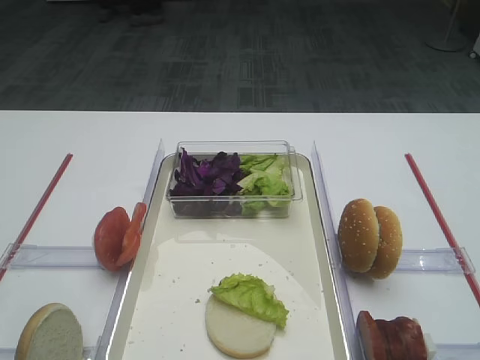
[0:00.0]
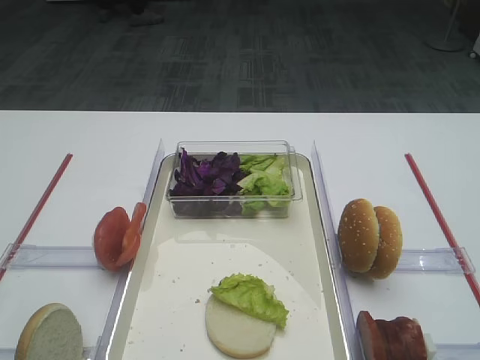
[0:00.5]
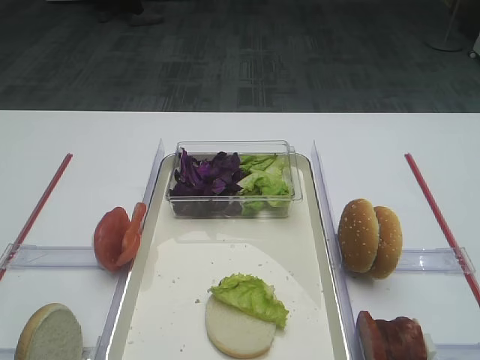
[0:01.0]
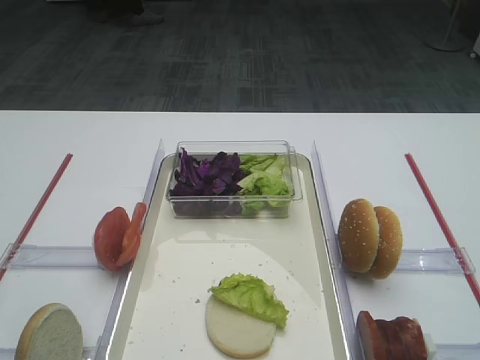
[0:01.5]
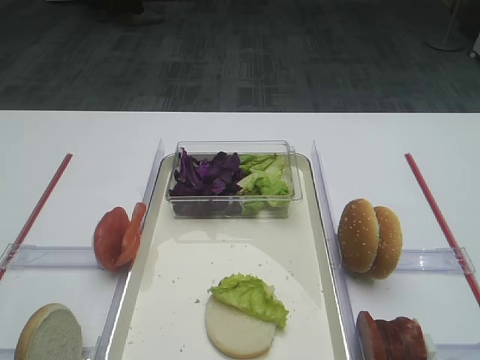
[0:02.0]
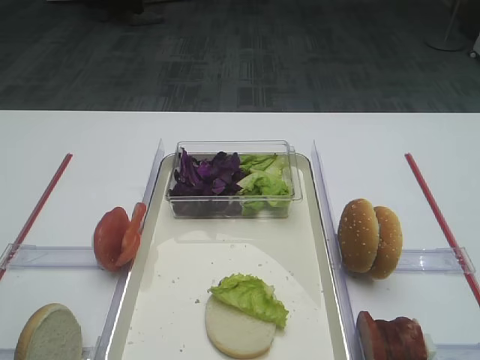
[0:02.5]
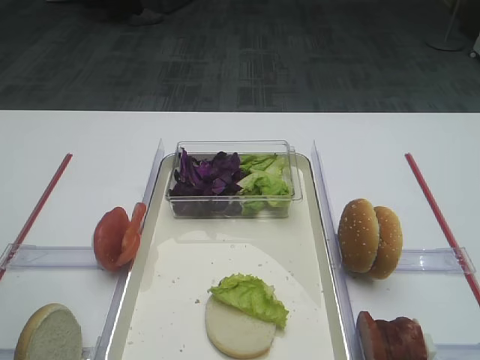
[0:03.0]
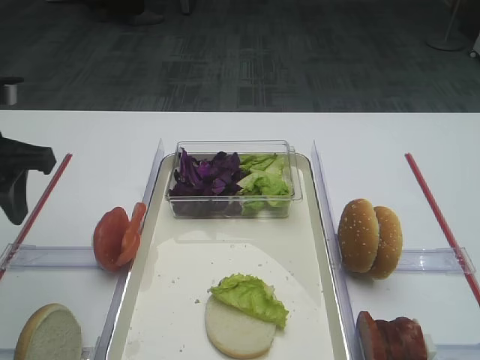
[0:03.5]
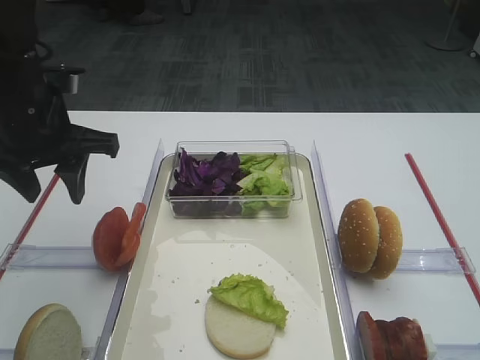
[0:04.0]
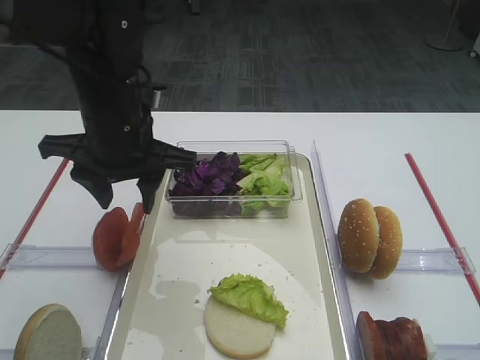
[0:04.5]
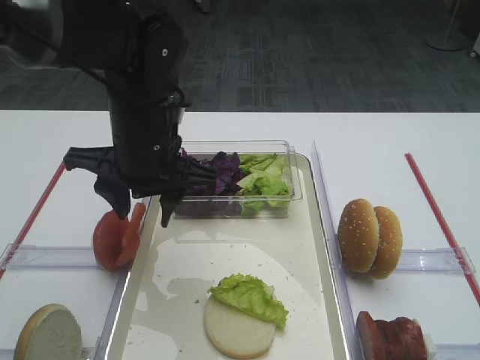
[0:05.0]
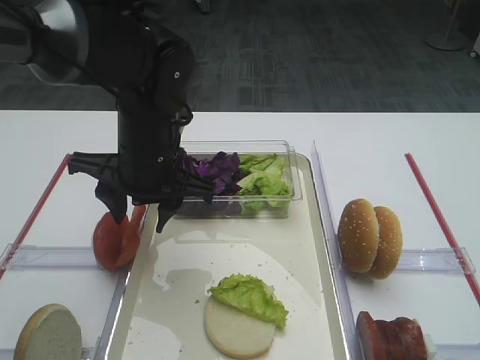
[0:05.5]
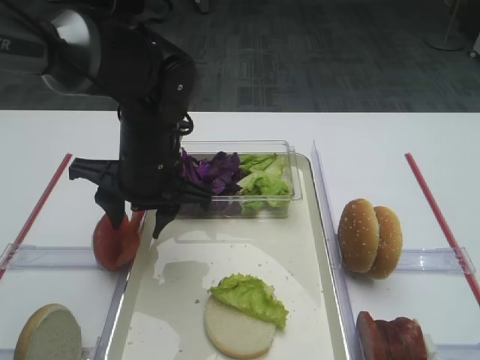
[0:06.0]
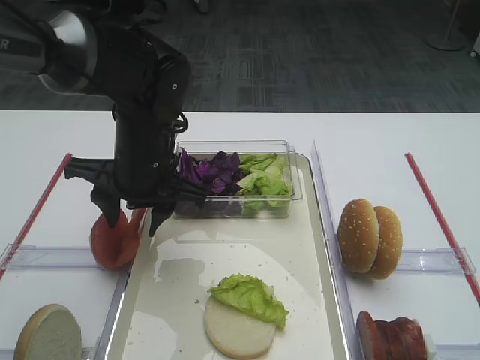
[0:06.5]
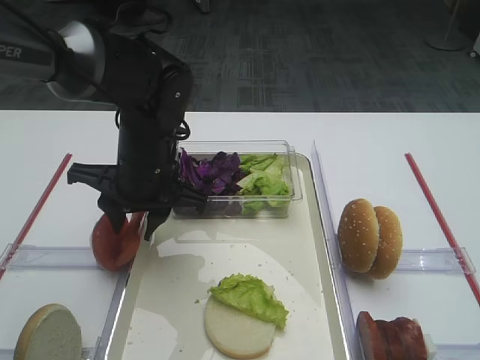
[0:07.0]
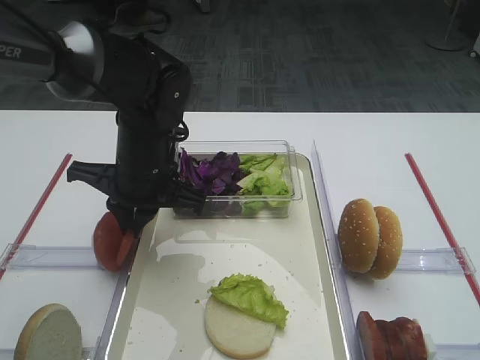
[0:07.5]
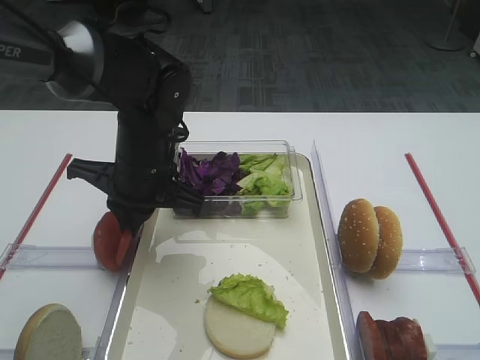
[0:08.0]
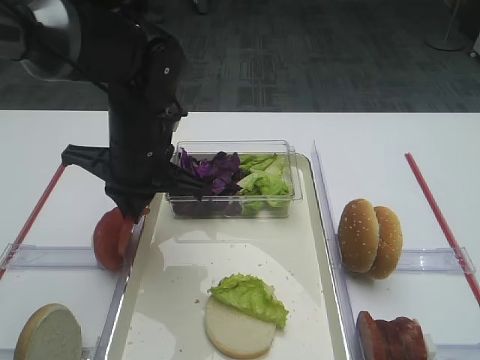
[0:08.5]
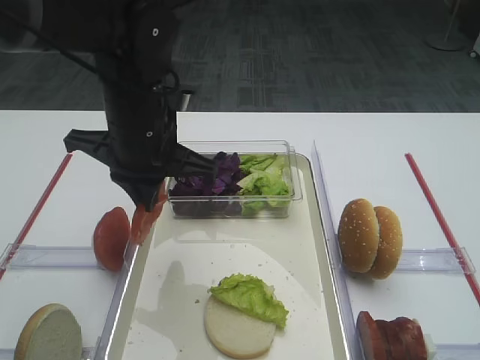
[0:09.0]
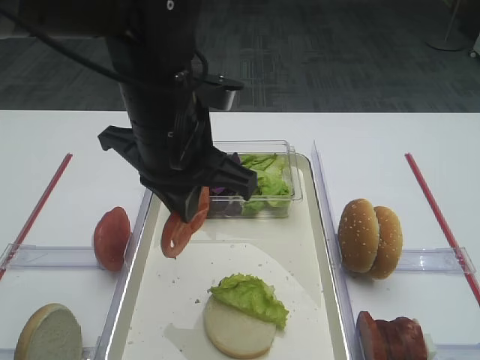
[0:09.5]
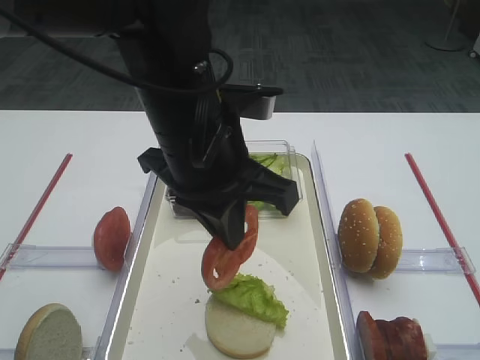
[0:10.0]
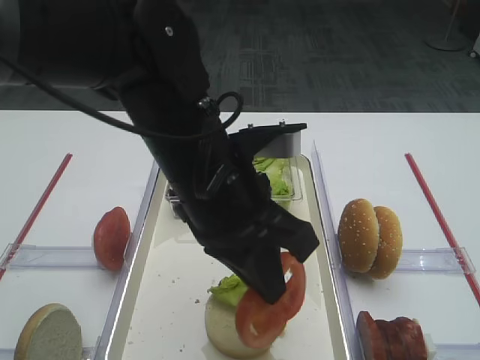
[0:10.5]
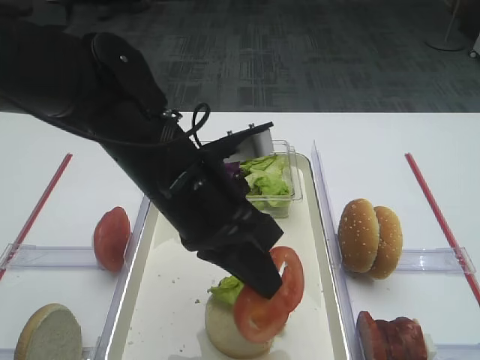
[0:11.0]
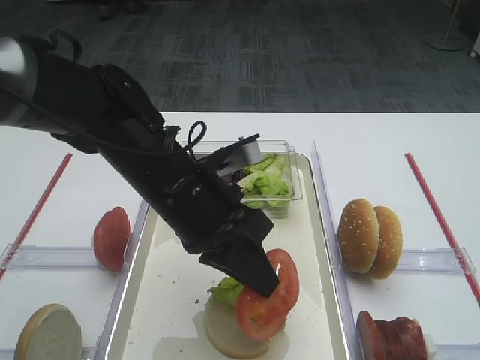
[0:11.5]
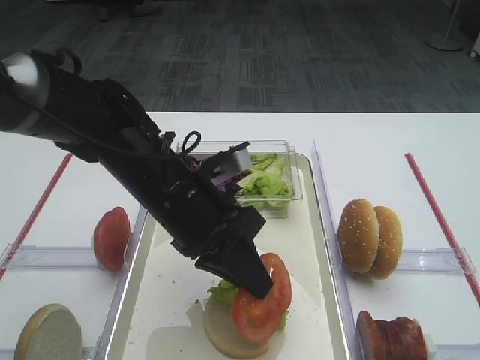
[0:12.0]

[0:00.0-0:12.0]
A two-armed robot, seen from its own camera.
Step, 0:00.0 to 0:08.5: Pick up the tomato slice with the left gripper.
0:02.0 to 0:04.0: The left gripper shifts approximately 25 cm forward.
0:04.0 to 0:06.0: The left gripper shifts approximately 15 cm to the right and downward.
0:06.0 to 0:08.0: The left gripper closes its fingers.
0:08.0 to 0:10.0: The left gripper travels upward, backward and to the right by approximately 15 cm.
0:10.0 to 0:12.0: The left gripper moves downward, approximately 10 cm.

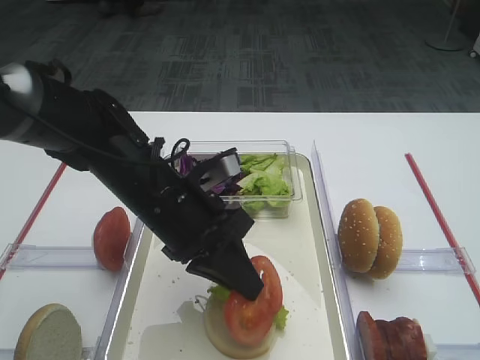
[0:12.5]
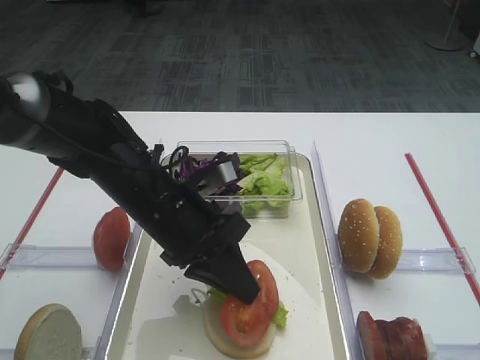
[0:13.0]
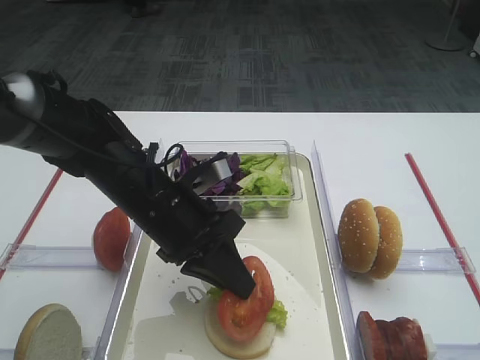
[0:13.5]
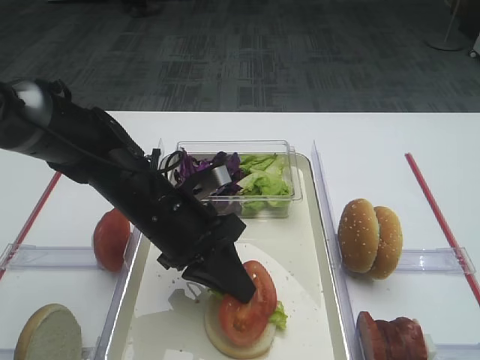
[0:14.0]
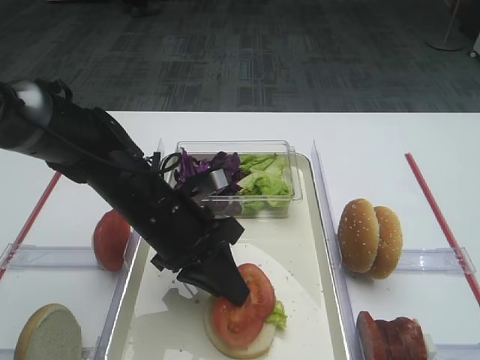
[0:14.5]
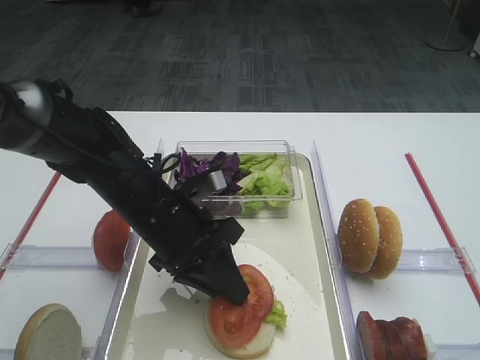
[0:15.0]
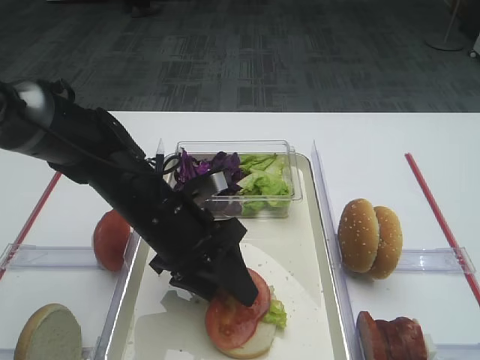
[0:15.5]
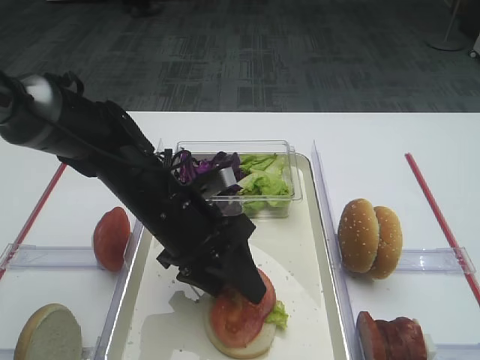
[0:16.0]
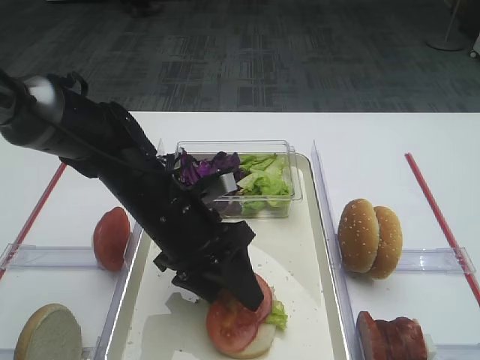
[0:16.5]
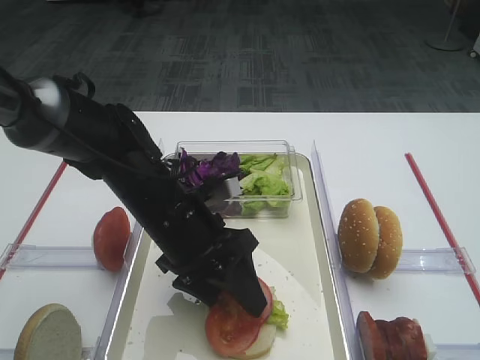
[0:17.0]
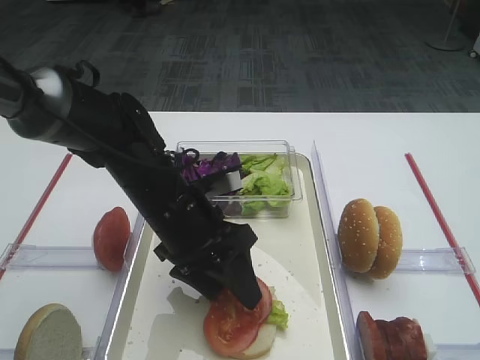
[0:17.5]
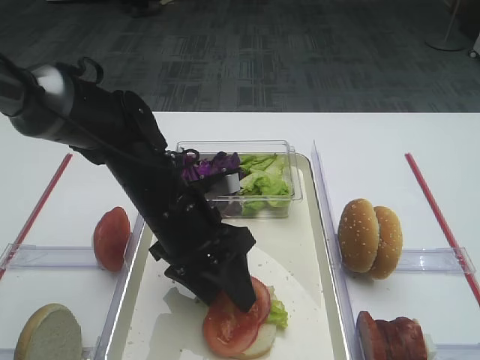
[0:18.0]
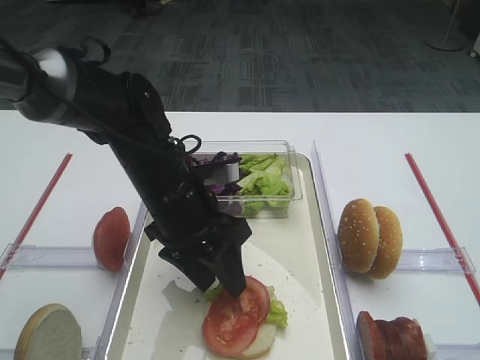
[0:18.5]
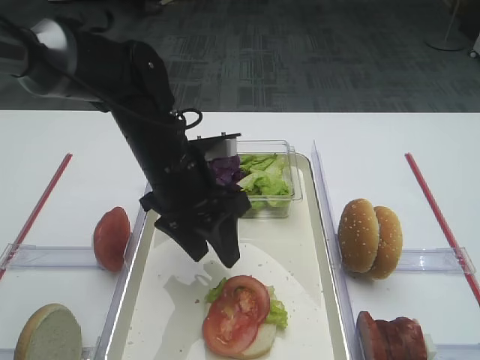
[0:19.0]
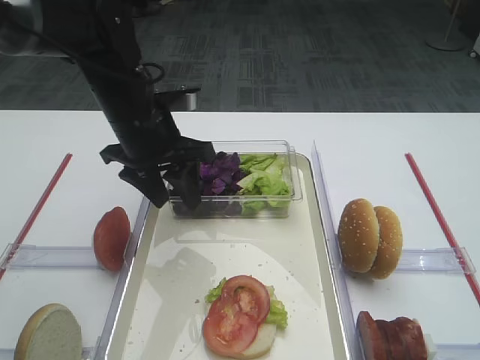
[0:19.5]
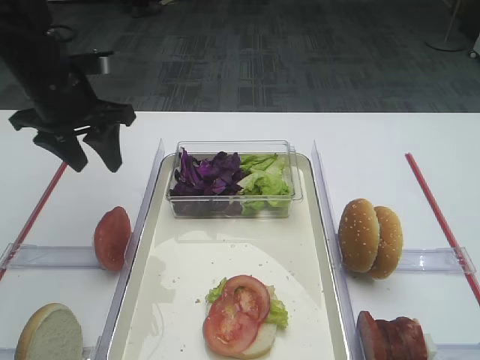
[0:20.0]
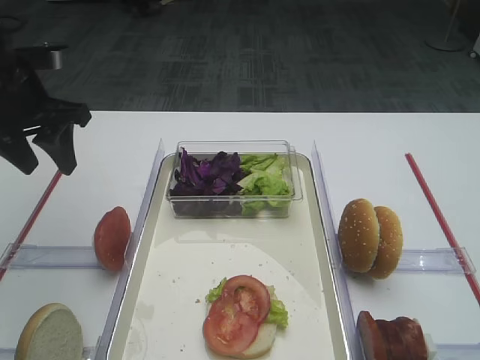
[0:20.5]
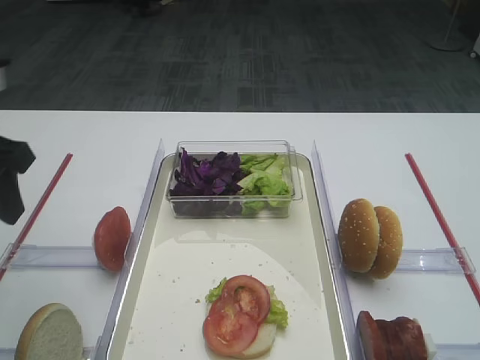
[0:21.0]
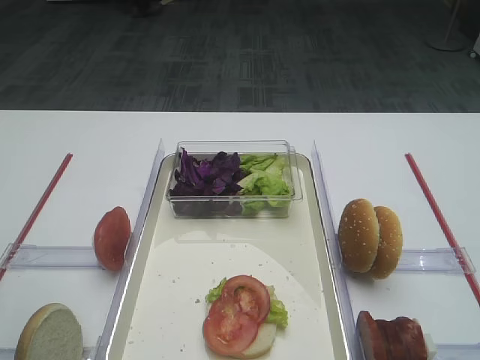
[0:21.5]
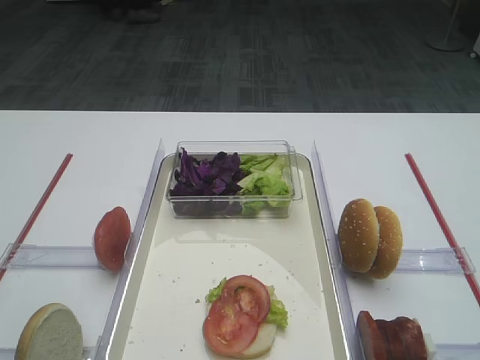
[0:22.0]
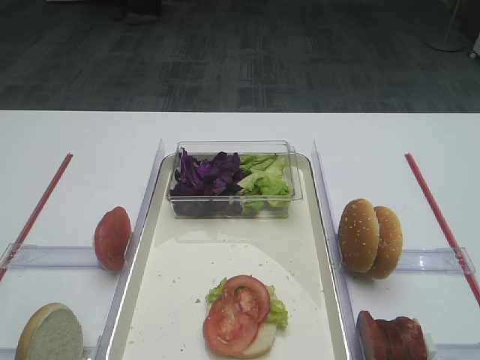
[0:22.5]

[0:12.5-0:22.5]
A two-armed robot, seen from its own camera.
Step, 0:12.5 to 0:18.5: Place the tomato slice on the lettuce leaf with the left gripper.
0:12.5 to 0:14.5: The grippers move only a little.
0:14.5 to 0:16.5: The left gripper opens.
0:16.5 to 0:18.5: The grippers move only a little.
0:18.5 to 0:20.5: The left gripper shifts some 20 cm to the left and upward.
0:20.5 to 0:22.5: The left gripper heads backward, covering some 30 cm.

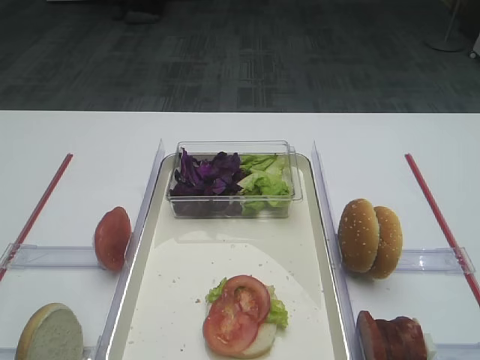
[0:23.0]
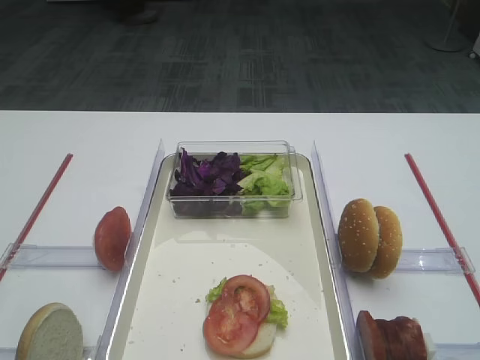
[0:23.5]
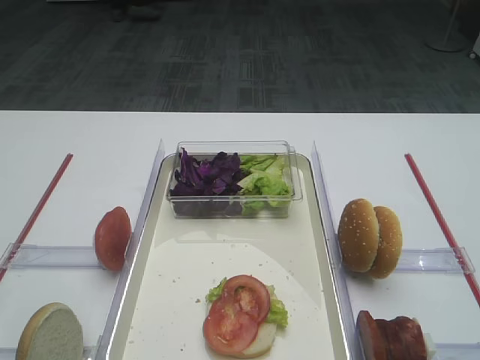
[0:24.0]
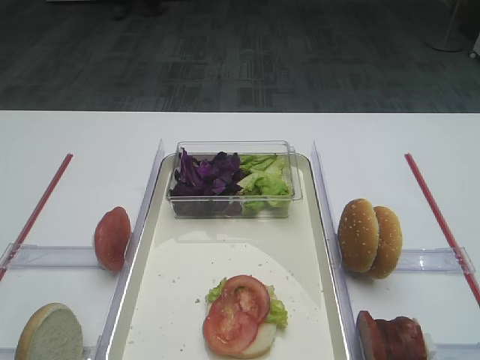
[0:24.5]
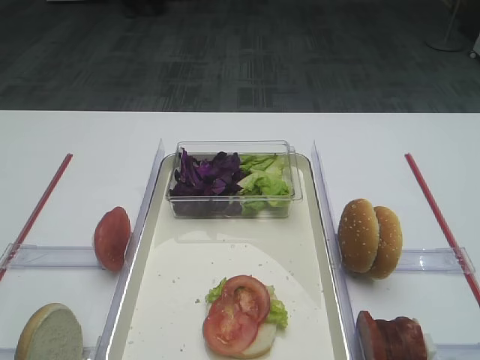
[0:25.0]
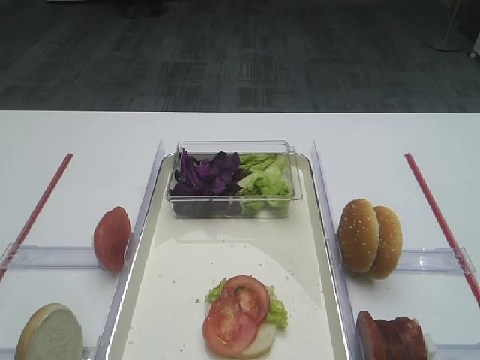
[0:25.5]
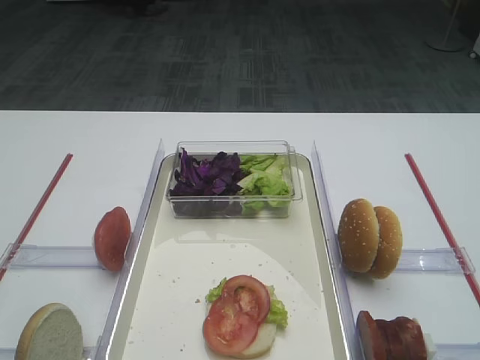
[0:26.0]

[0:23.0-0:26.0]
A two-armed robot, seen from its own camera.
0:24.5 to 0:26.0: Neither gripper changes place.
